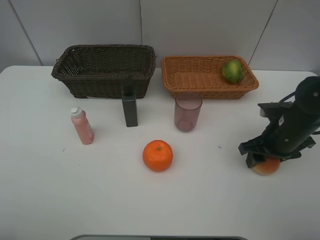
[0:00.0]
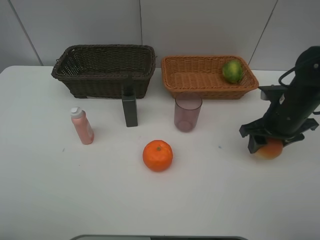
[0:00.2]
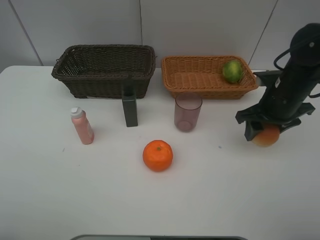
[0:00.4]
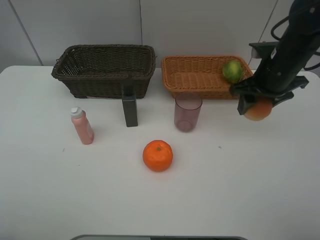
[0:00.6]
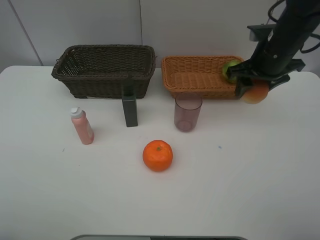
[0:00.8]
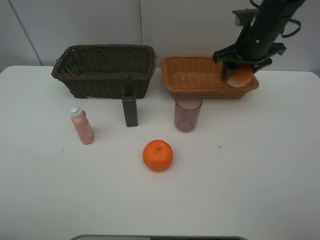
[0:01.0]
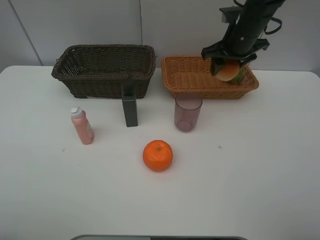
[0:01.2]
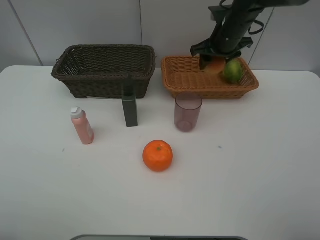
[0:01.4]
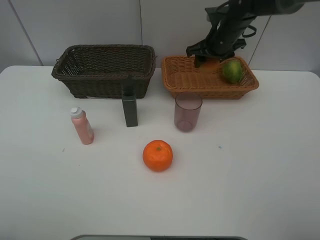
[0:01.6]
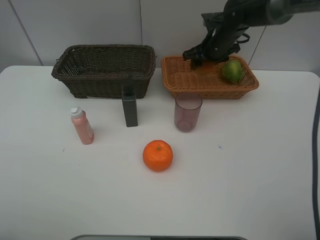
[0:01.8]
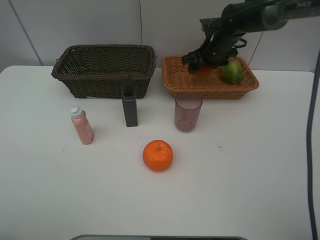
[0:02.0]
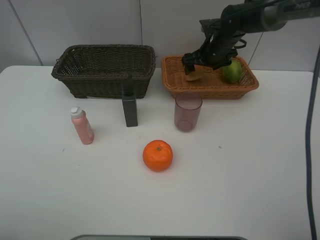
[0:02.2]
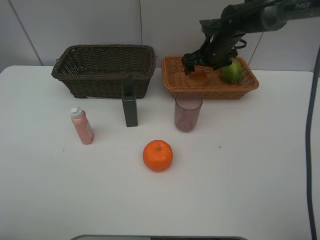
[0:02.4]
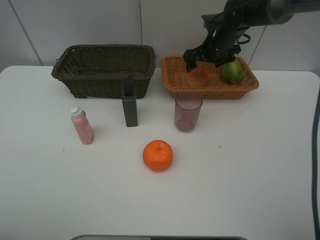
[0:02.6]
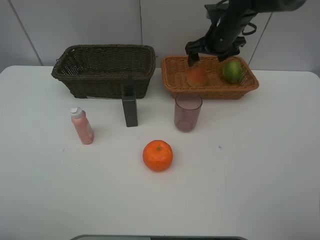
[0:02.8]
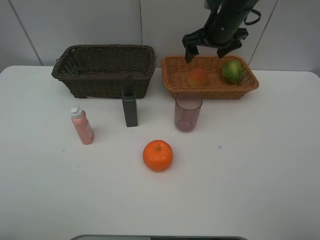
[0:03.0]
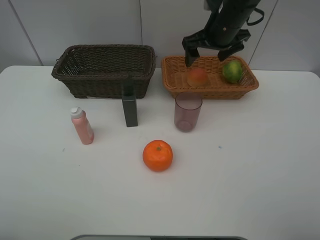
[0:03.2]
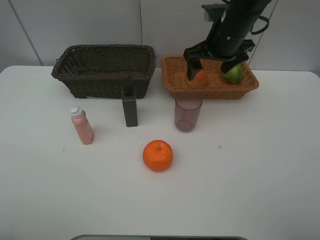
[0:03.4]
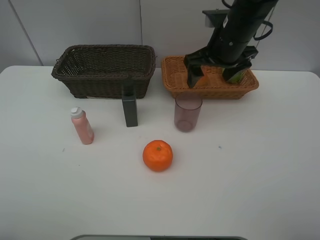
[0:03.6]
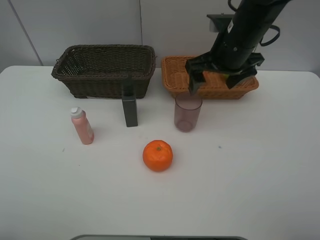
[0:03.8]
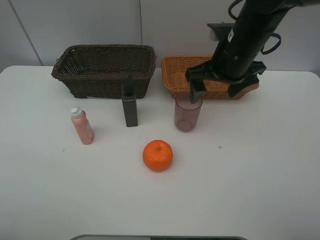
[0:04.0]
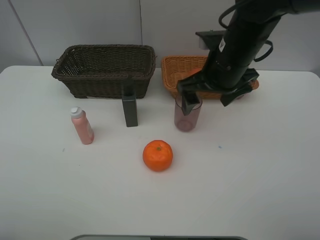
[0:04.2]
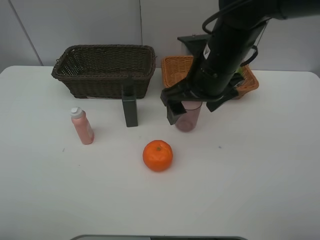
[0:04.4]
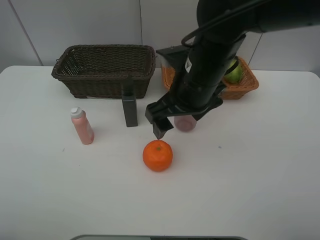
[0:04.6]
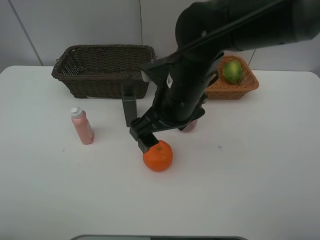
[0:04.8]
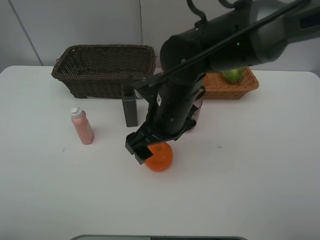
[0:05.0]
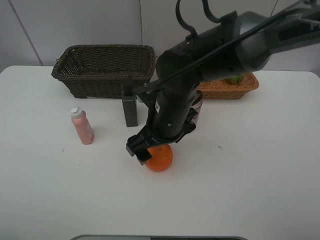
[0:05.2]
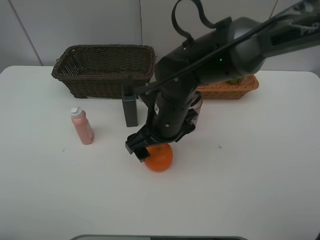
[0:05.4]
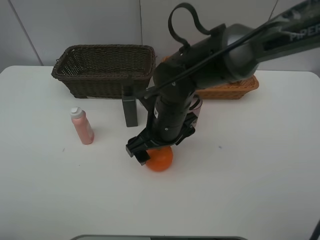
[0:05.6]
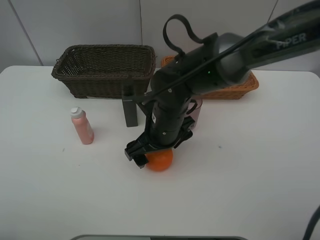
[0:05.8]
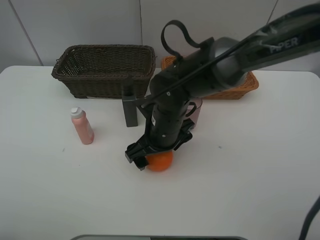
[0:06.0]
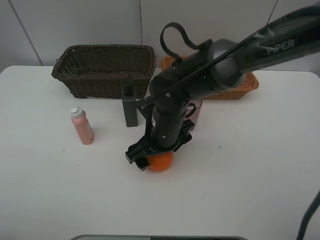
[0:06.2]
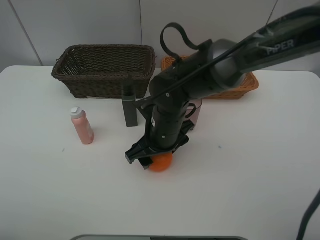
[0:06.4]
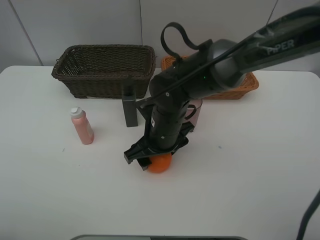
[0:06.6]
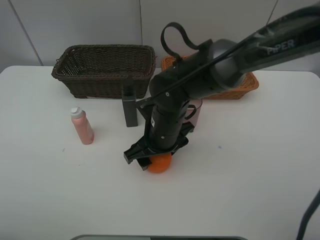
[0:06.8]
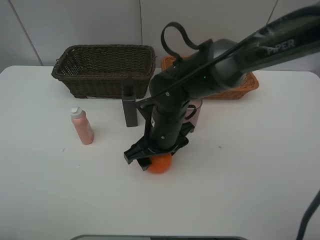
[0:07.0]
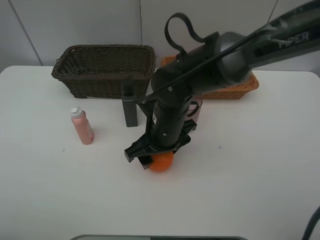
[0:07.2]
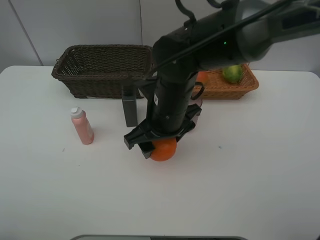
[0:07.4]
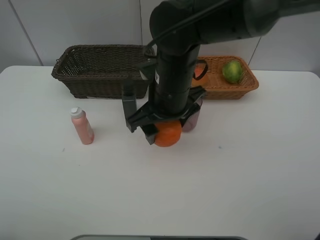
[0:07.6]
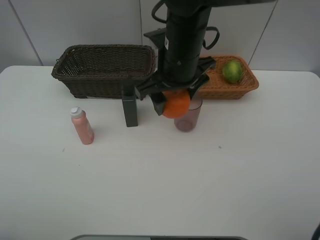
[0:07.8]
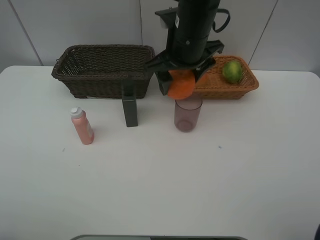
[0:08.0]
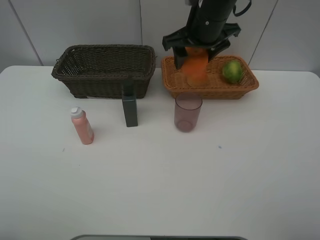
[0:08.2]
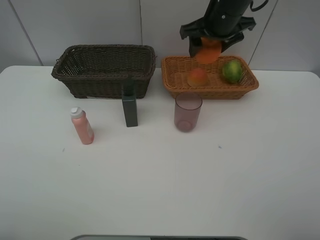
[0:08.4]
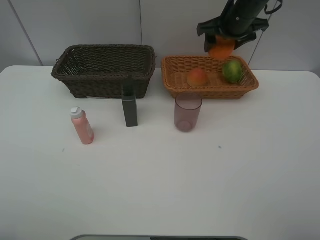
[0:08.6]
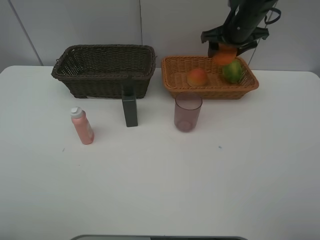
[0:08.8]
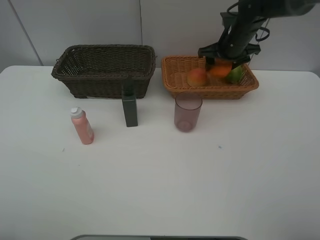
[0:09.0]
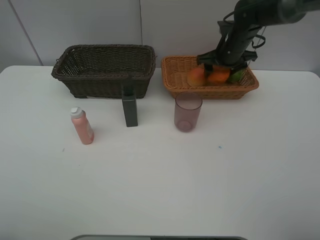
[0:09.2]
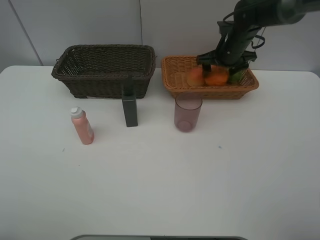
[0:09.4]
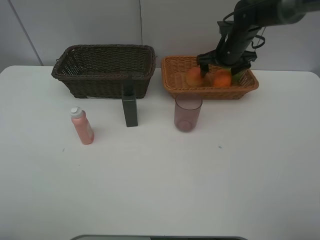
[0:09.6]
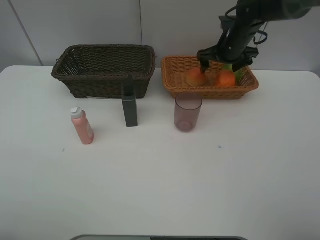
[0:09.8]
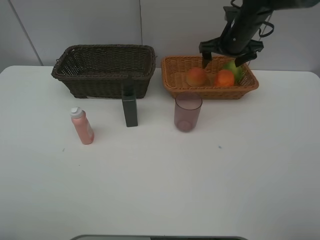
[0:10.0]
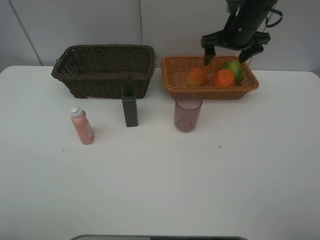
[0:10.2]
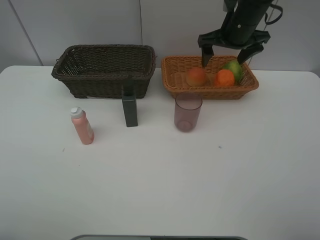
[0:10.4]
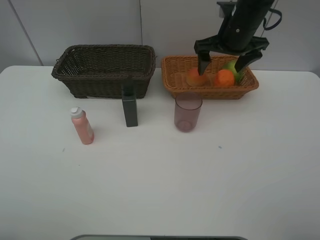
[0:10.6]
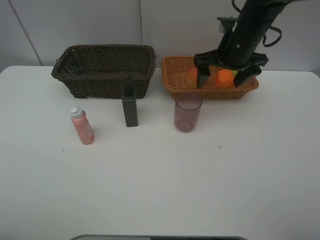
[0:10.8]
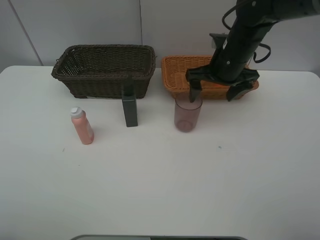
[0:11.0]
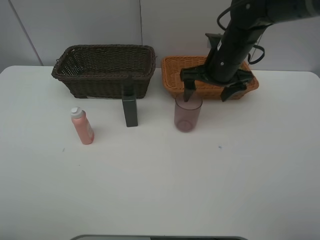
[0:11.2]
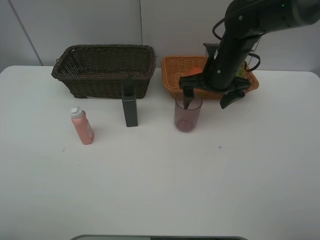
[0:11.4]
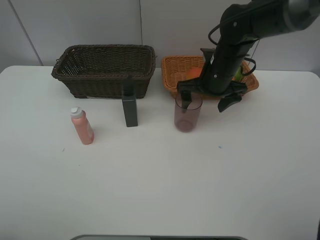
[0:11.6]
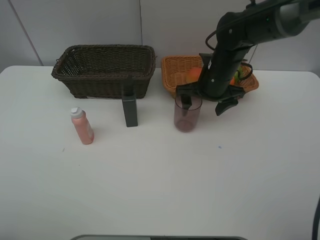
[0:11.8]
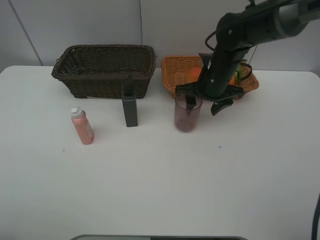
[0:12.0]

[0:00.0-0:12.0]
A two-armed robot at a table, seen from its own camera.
Task of the whole recording: place multiple objects separately in different baskets.
0:00.0 to 0:01.6: The right gripper goes some 25 cm forward and to the left.
0:01.6 to 0:03.0: The right gripper ends up some 5 cm from where it was, and opens its fingers.
0:03.0 to 0:04.4: The right gripper heads backward, covering approximately 15 cm.
0:04.4 to 0:06.0: The right gripper heads downward and to the left, covering roughly 15 cm.
0:06.0 to 0:07.6: The right gripper heads upward, covering roughly 10 cm.
0:07.6 to 0:09.0: The right gripper shifts about 25 cm forward and to the right.
0:09.0 to 0:10.4: The right gripper travels upward by approximately 5 cm.
0:10.4 to 0:12.0: The right gripper travels downward and backward by roughly 10 cm, and closes up.

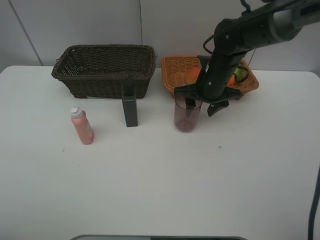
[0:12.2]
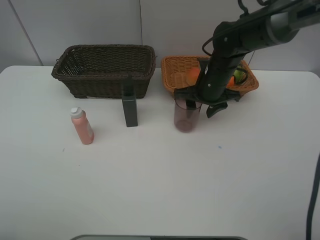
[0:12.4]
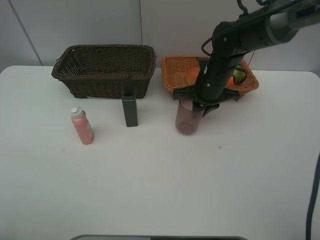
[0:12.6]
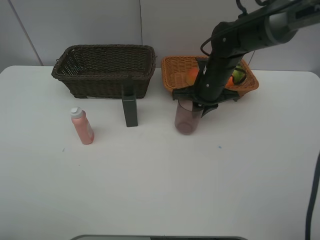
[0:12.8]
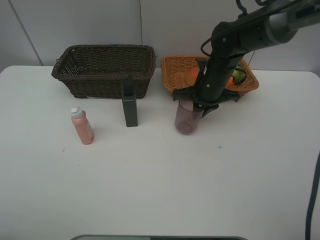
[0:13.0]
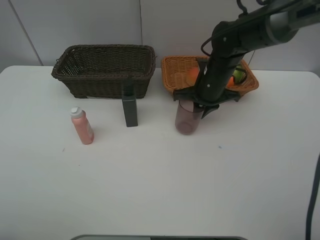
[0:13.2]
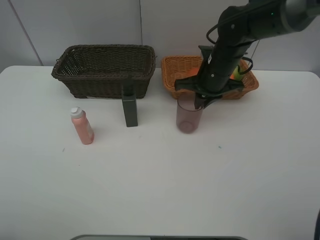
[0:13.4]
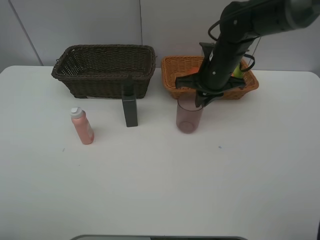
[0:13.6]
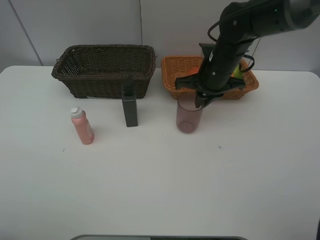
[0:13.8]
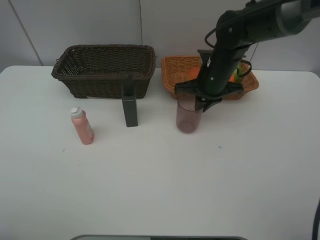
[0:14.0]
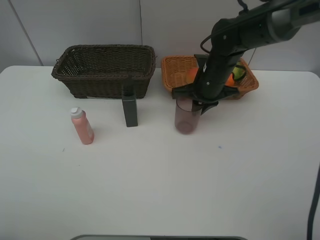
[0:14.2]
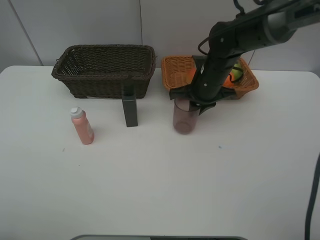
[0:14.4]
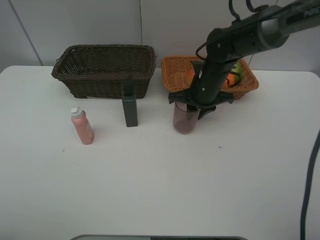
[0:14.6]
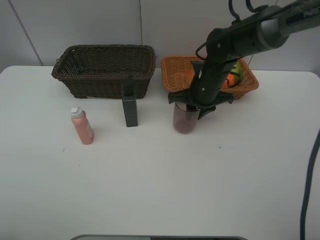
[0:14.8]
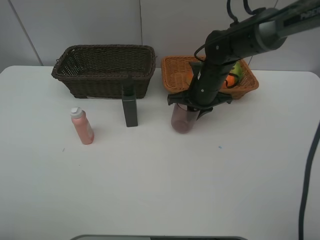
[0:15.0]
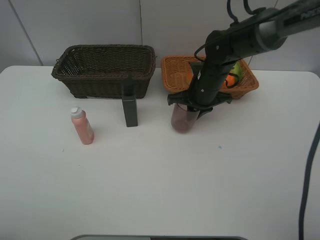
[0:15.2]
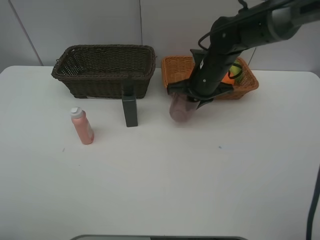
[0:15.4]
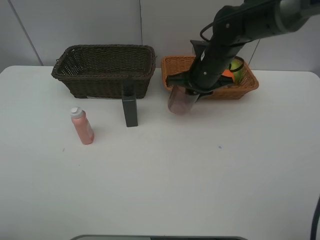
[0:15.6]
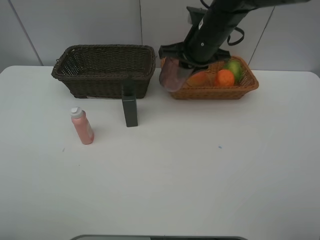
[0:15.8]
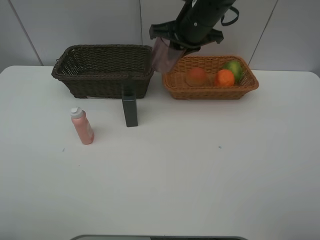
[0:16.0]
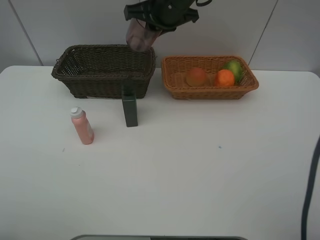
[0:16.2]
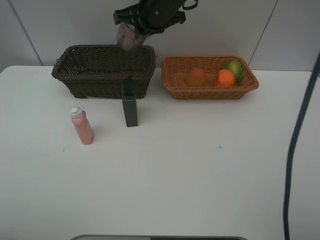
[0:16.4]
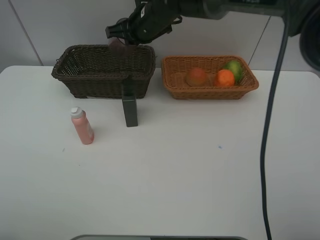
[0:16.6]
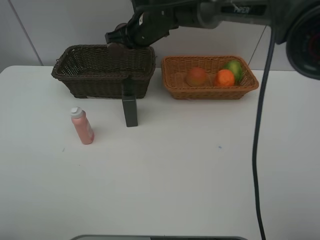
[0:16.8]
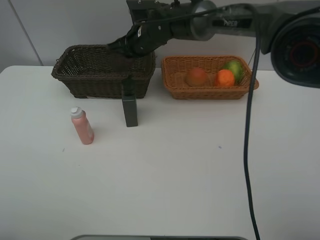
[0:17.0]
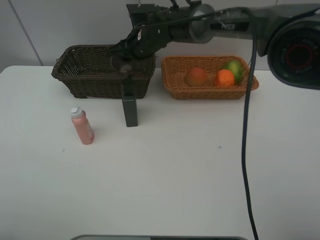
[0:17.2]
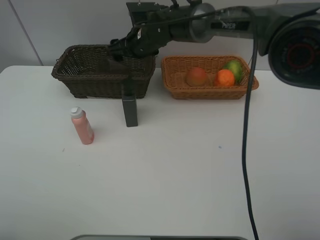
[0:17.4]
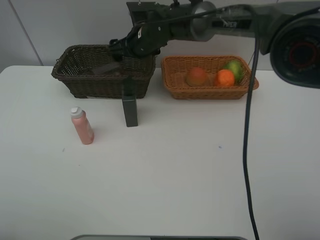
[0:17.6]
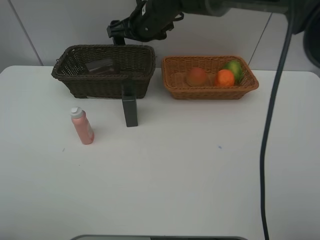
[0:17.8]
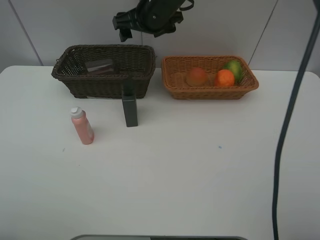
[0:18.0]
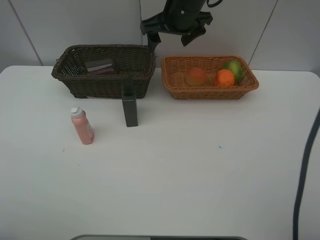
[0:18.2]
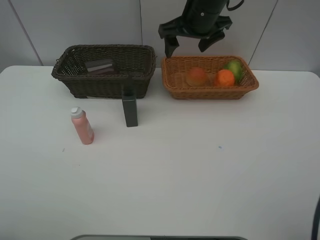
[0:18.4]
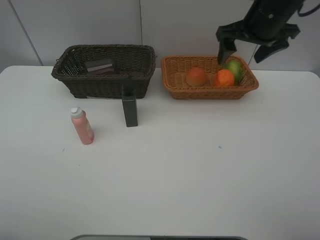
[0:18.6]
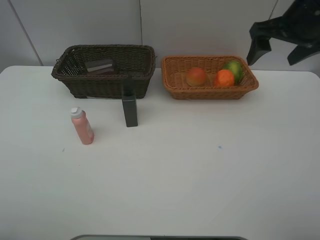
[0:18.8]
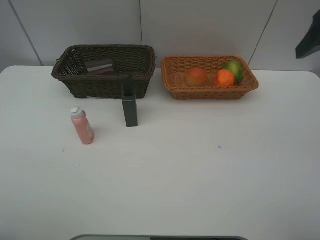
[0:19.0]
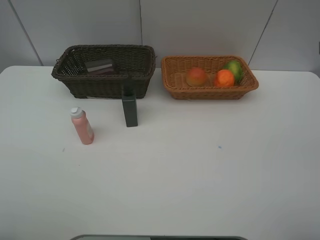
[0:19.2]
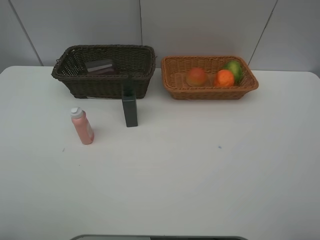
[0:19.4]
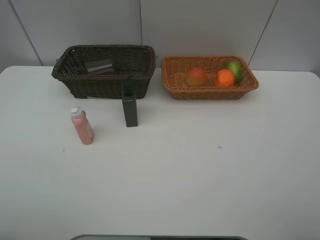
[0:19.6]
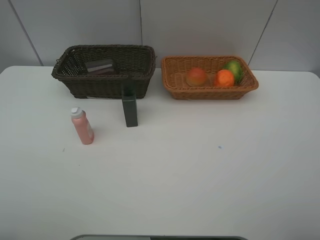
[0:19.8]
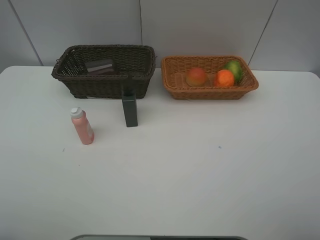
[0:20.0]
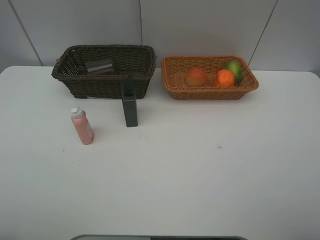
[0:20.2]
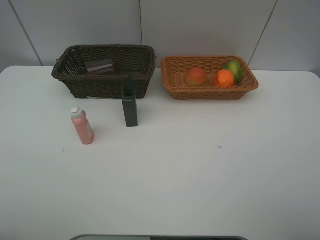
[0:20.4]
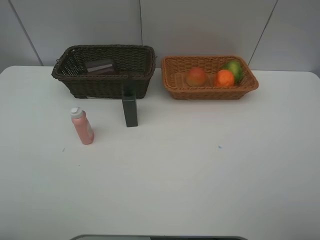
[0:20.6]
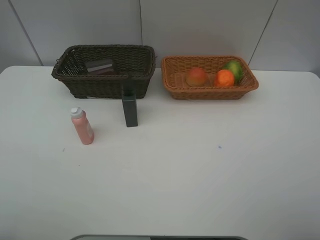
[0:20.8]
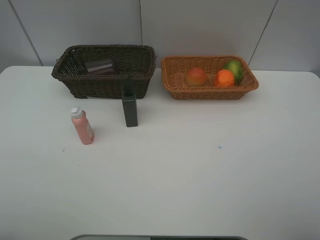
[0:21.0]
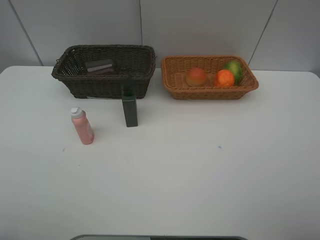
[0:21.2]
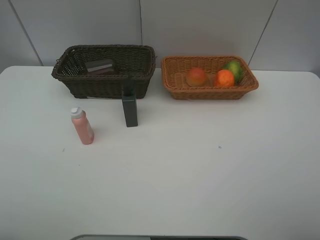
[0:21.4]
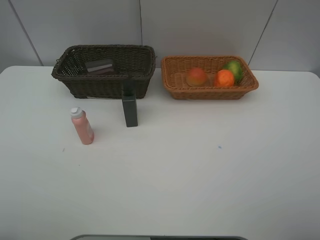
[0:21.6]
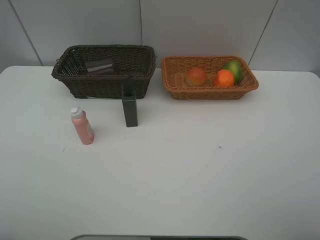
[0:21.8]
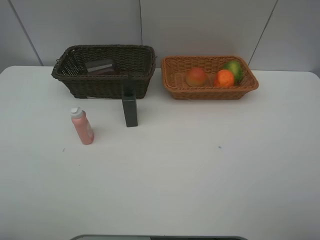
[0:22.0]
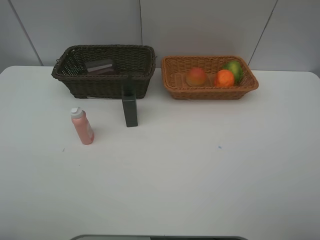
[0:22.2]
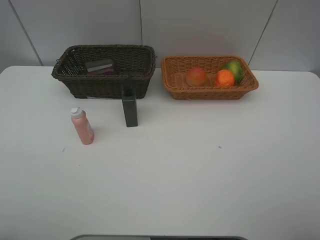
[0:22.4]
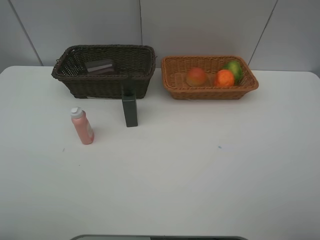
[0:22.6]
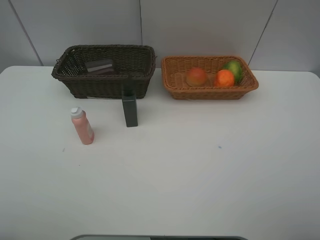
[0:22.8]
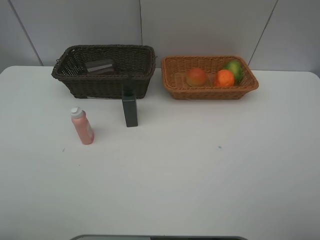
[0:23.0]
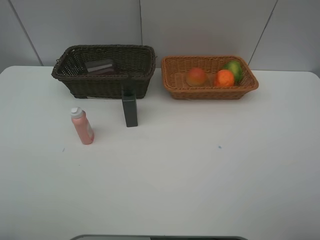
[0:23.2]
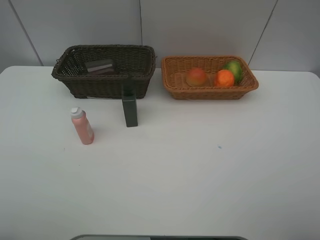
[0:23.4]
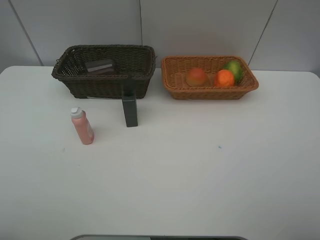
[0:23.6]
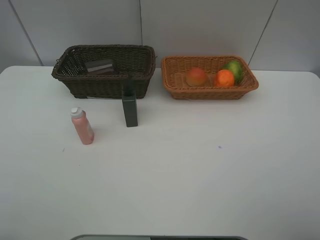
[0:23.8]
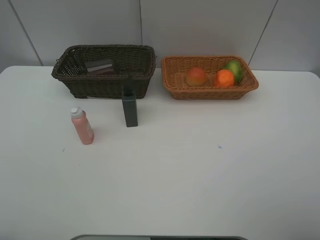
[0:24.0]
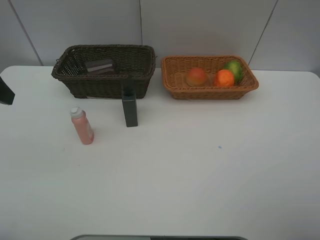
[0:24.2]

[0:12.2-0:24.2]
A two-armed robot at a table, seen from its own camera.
Task of the whole recording: place multiple objects separately in different baskets.
0:12.2 to 0:13.8: The right gripper closes.
0:13.8 to 0:15.2: There are only small adjustments of the grippers.
0:15.2 to 0:16.6: The right gripper moves to the left, upward and forward, roughly 20 cm.
0:16.6 to 0:18.2: The right gripper goes some 10 cm to the right and upward, and opens.
0:18.2 to 0:19.8: The right gripper moves backward and to the right, some 50 cm.
0:21.2 to 0:22.6: The two grippers keep their place.
